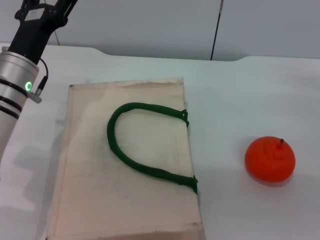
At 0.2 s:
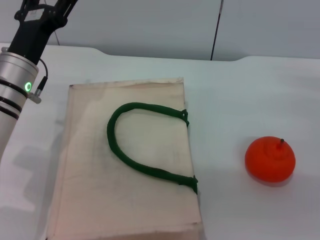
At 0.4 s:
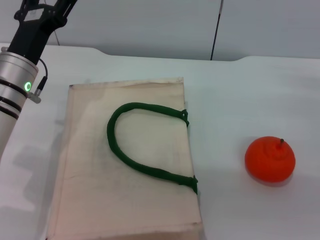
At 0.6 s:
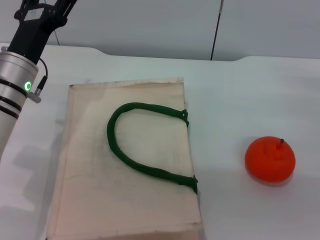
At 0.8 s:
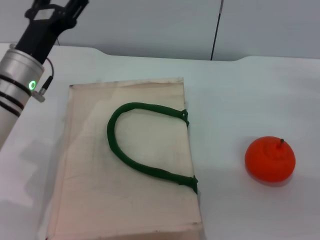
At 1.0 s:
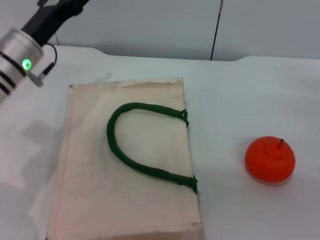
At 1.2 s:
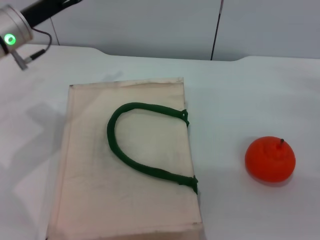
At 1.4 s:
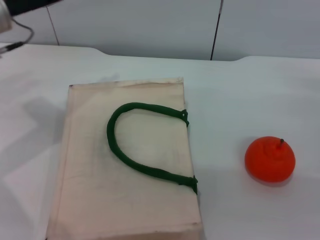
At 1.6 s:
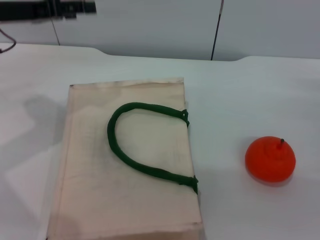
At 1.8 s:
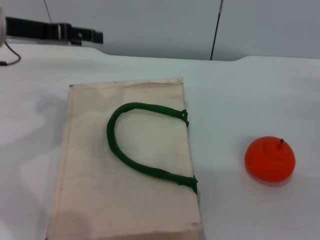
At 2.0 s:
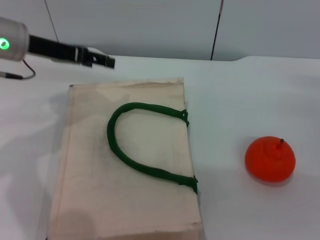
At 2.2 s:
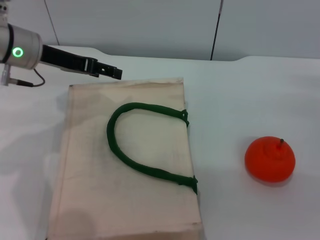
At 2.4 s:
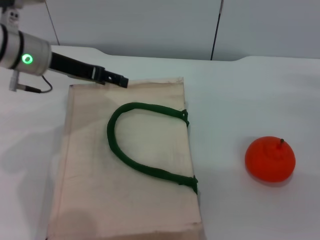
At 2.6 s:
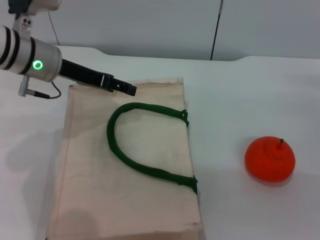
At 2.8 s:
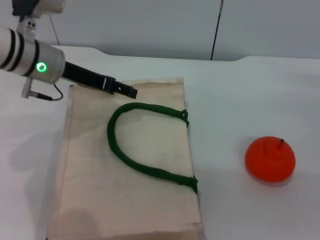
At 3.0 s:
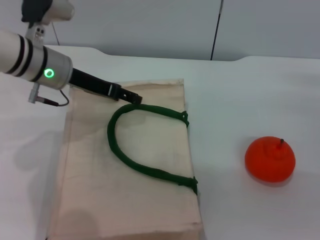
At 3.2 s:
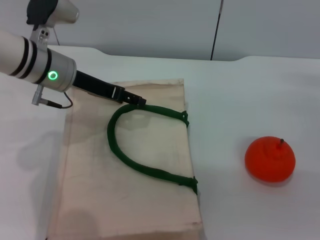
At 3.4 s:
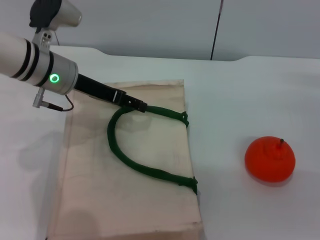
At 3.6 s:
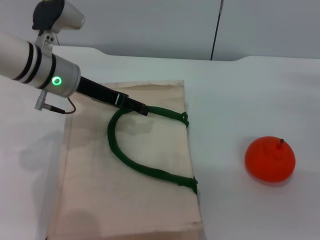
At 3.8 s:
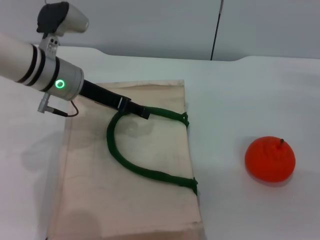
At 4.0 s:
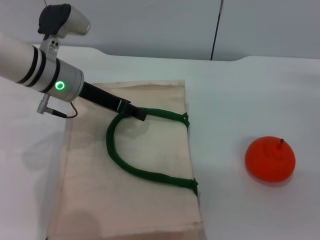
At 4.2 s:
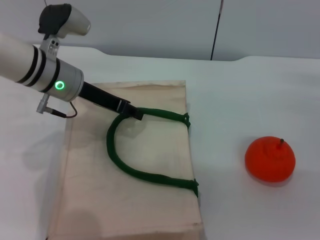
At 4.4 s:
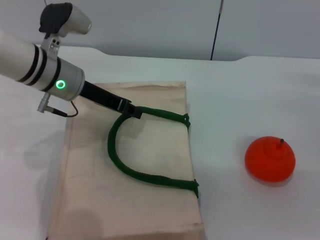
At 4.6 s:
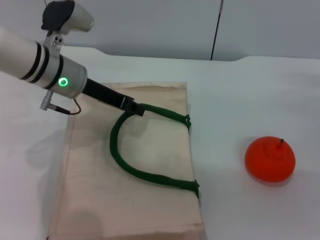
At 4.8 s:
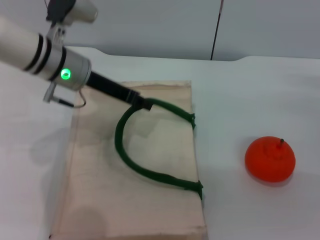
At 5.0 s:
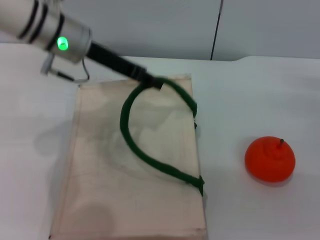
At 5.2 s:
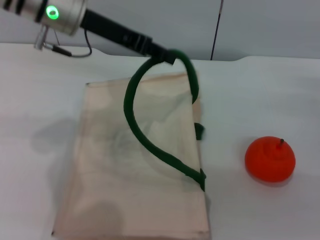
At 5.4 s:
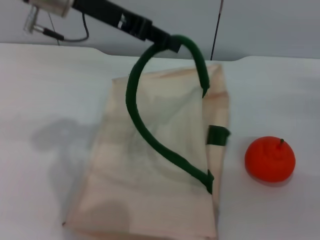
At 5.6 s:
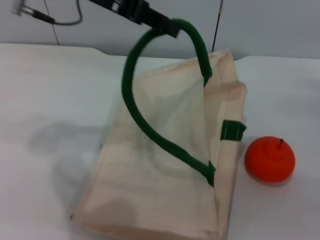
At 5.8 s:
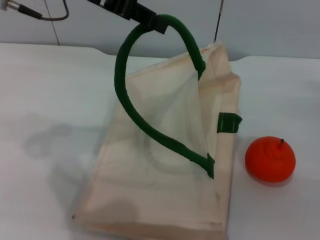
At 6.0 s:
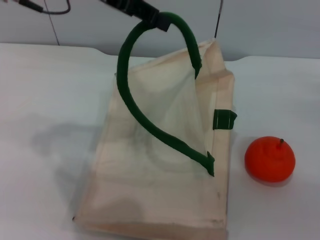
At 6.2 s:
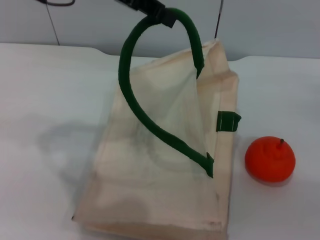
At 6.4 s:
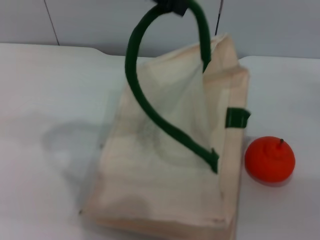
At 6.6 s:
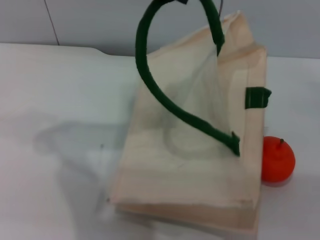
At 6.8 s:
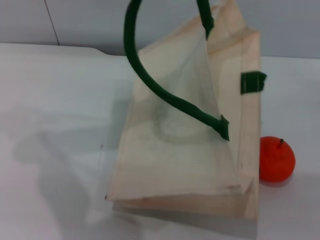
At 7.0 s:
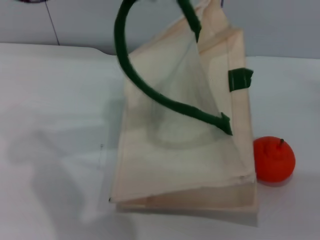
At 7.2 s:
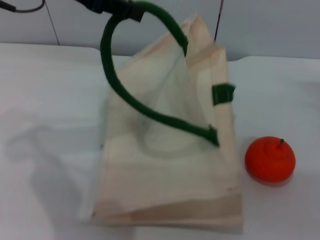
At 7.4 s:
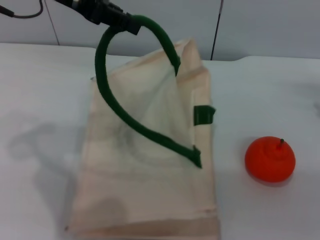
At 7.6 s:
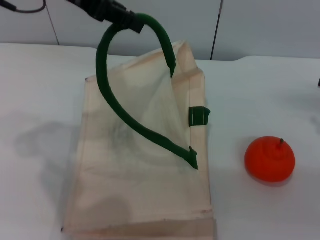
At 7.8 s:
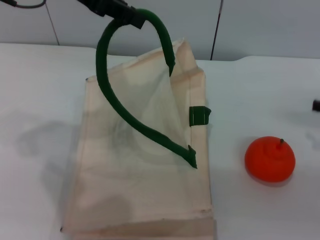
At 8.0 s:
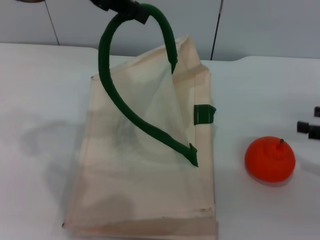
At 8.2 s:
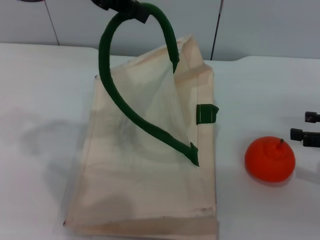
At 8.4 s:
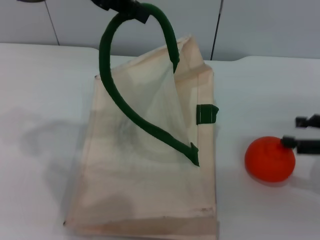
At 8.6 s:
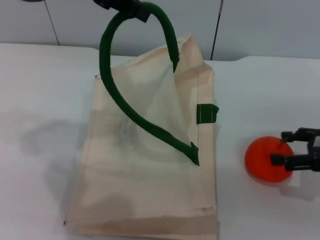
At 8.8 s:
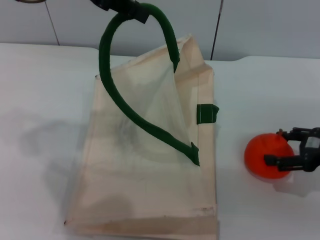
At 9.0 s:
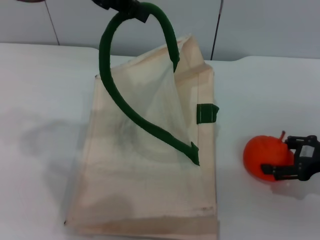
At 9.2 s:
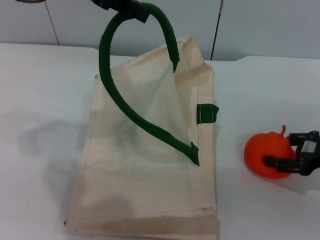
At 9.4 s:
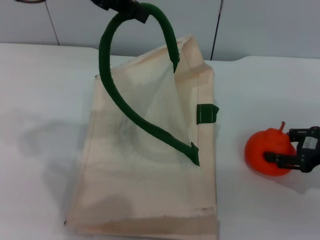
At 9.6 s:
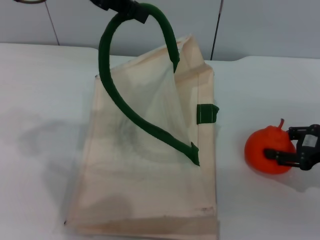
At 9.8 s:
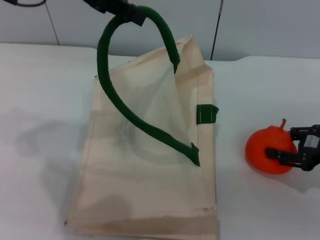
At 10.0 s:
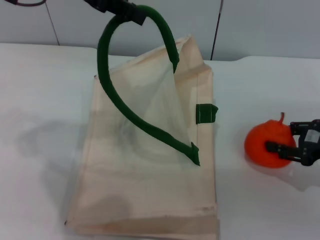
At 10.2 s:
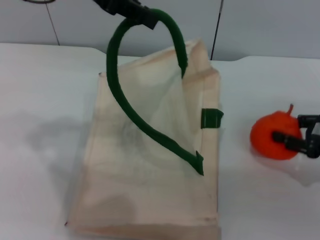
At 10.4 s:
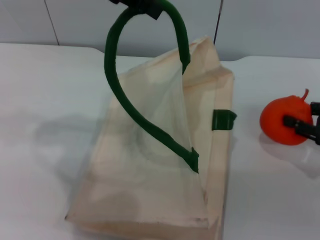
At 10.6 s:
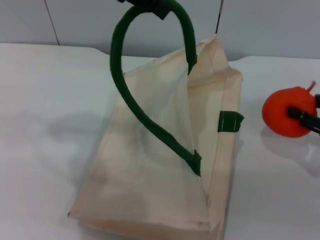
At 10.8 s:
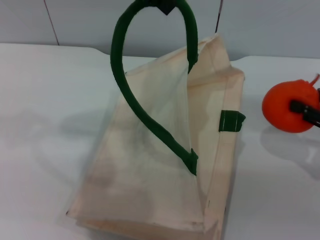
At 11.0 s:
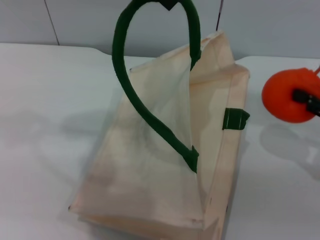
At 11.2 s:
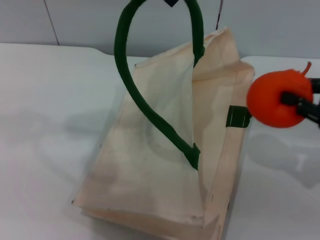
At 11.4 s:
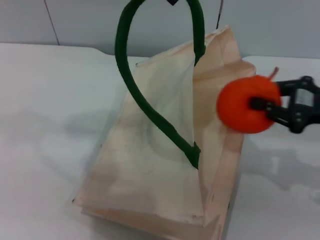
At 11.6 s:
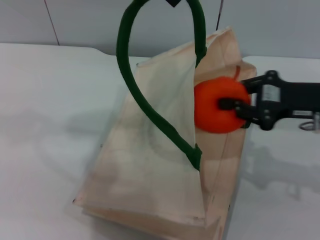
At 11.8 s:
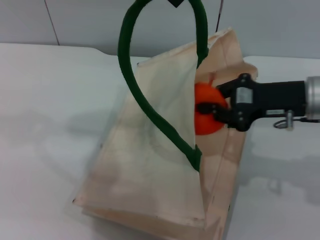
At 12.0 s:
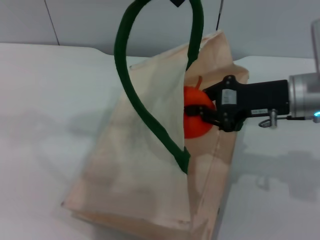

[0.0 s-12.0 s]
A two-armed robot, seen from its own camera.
Task of the whole recording: pick up the orange from the table and place it in the white handbag.
Step, 0.0 to 7.2 s: Lift the woven bag with the left gripper to open it.
Step, 7.4 to 10.2 s: Pick up the orange with the right gripper.
0.0 to 1.6 s: The left gripper travels upward and to the left by roughly 15 cm.
1.6 to 3.0 s: The left gripper moves to the right and downward, roughly 10 cm.
3.0 to 4.4 s: The left gripper closes its fingers.
4.4 to 6.0 s: The left gripper goes some 20 cm upward.
6.0 to 7.6 s: The right gripper ends up about 5 cm from where it was.
7.6 to 9.0 s: The right gripper shifts approximately 5 cm to the left.
9.0 to 10.4 s: The right gripper closes up.
10.4 to 12.0 s: The left gripper shifts by about 5 cm; the right gripper goes approximately 15 cm to the left, and closes.

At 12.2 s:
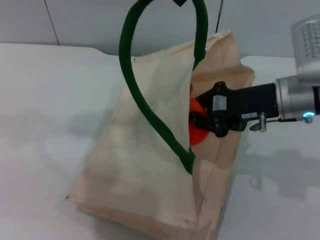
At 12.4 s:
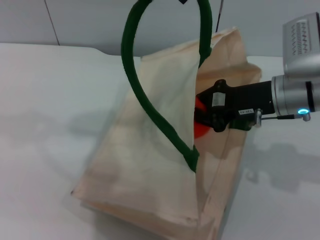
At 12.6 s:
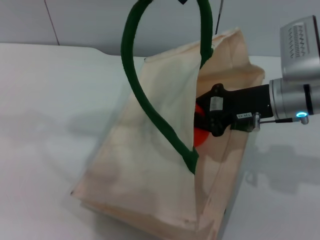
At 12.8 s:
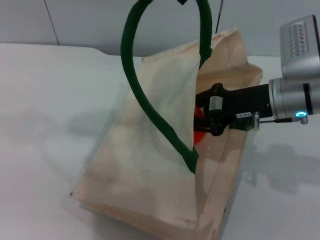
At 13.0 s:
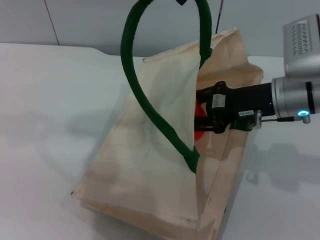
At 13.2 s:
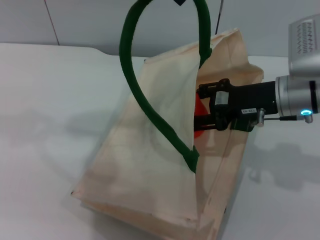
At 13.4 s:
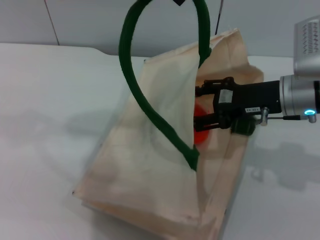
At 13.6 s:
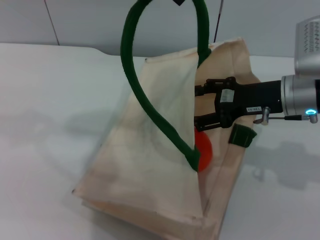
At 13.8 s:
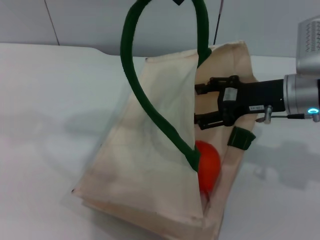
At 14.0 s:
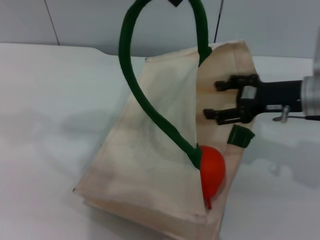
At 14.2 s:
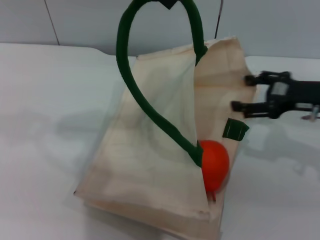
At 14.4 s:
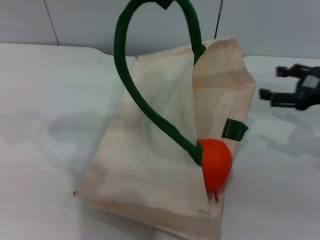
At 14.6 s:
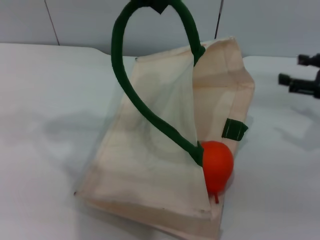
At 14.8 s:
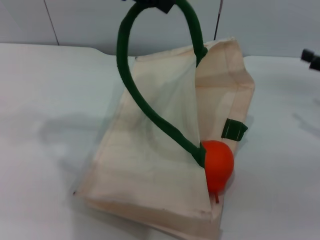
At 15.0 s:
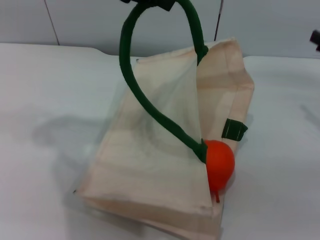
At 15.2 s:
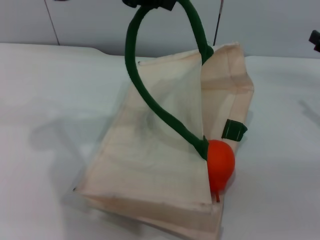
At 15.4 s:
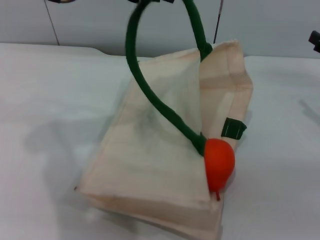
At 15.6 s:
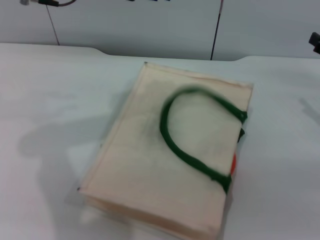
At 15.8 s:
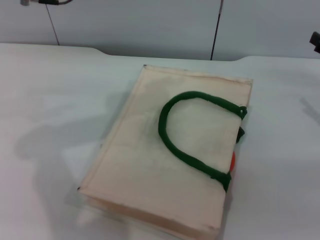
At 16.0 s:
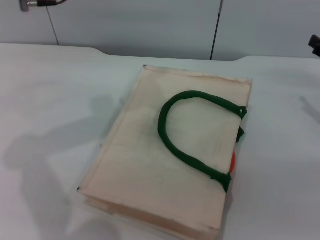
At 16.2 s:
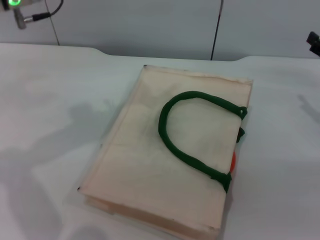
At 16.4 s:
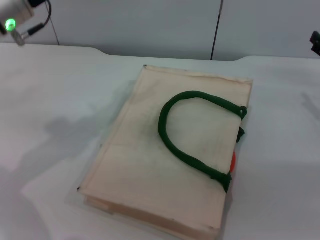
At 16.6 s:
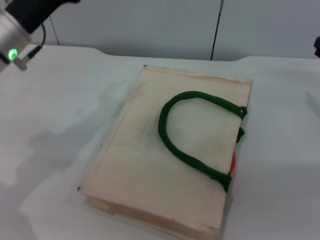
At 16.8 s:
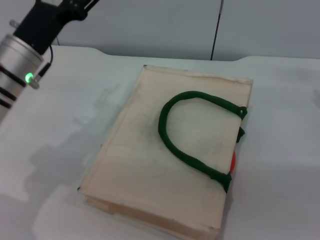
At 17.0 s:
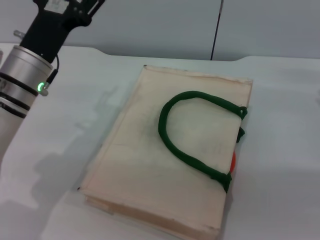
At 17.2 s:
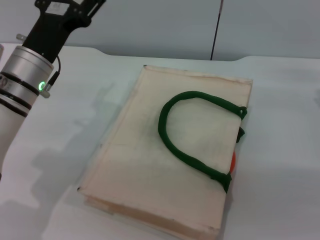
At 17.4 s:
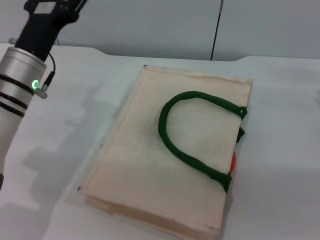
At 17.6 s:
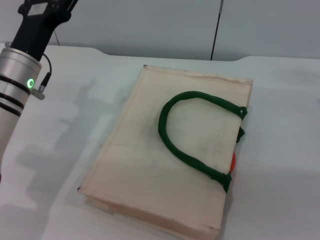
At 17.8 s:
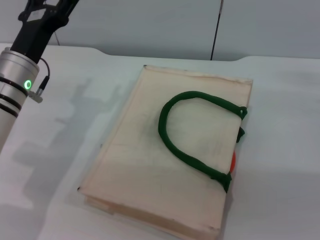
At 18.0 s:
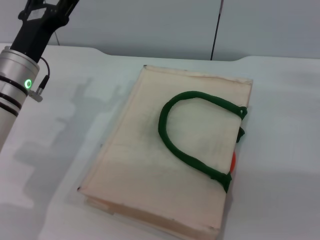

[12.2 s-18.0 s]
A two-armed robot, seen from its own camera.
Task of the whole recording: pick up the orange from the table and place it in the white handbag.
Step, 14.2 to 15.4 s: Lower the woven bag with the left gripper to close it.
12.2 to 13.6 s: The right gripper opens its fingers.
13.6 to 15.0 s: The left gripper is displaced downward by roughly 5 cm. The right gripper is displaced to the right by roughly 15 cm.
15.0 to 16.6 s: The left gripper travels downward by about 15 cm, and opens.
16.6 to 18.0 s: The left gripper shifts about 5 cm downward.
